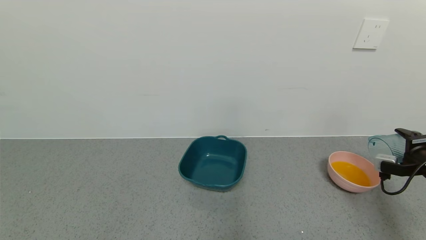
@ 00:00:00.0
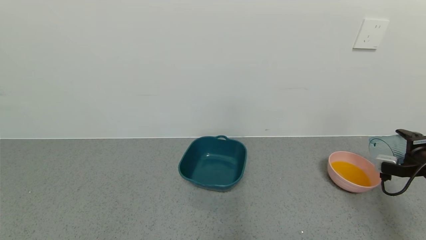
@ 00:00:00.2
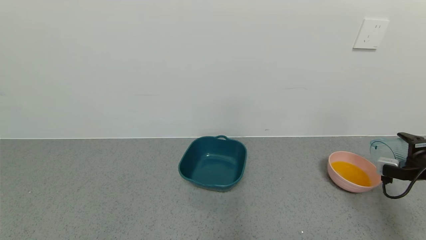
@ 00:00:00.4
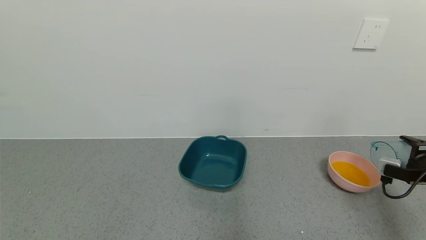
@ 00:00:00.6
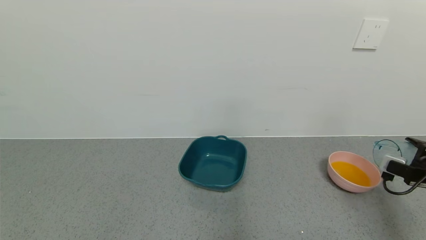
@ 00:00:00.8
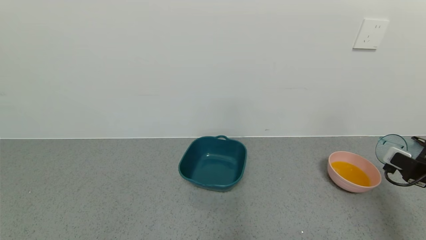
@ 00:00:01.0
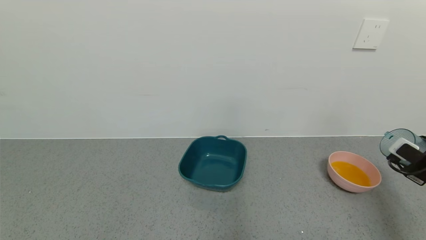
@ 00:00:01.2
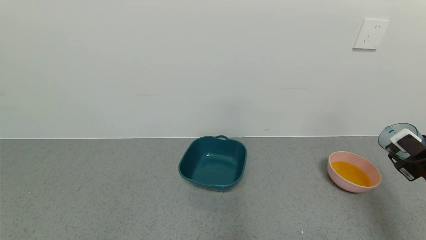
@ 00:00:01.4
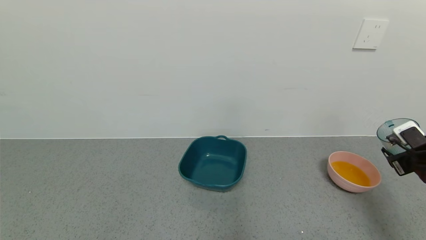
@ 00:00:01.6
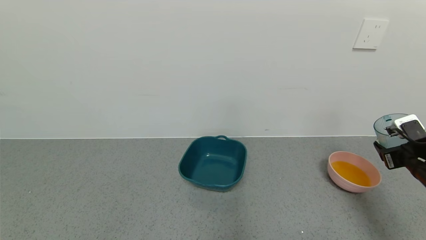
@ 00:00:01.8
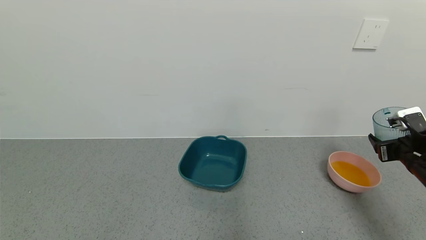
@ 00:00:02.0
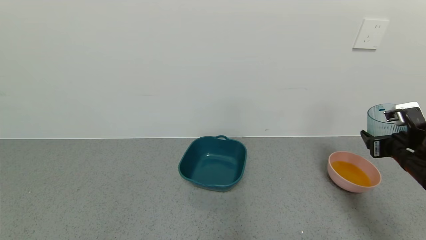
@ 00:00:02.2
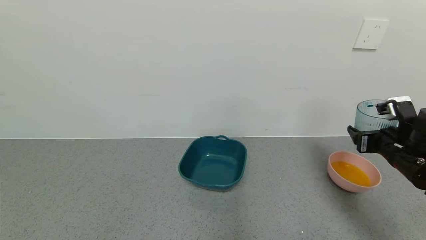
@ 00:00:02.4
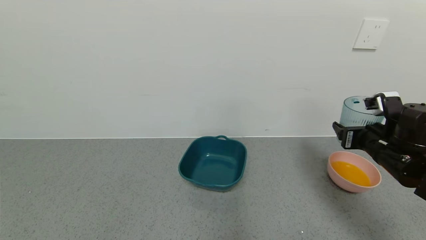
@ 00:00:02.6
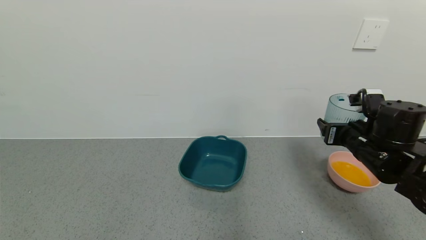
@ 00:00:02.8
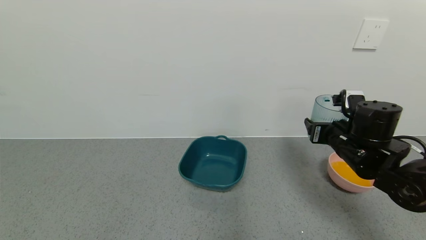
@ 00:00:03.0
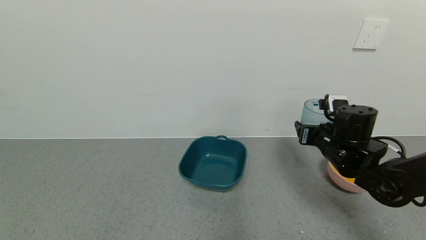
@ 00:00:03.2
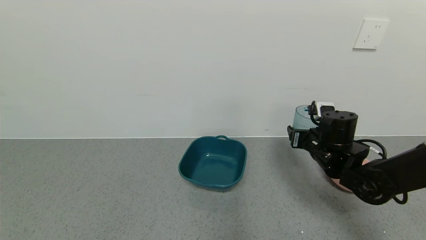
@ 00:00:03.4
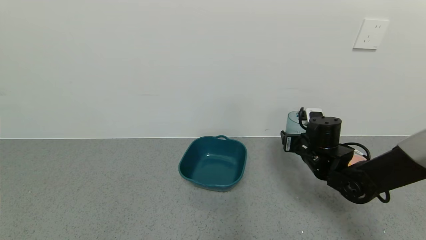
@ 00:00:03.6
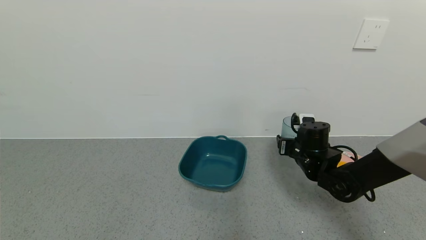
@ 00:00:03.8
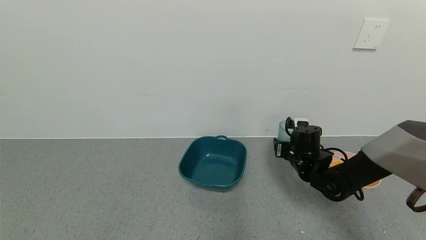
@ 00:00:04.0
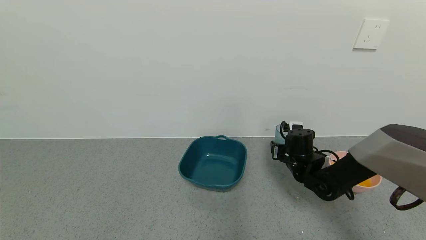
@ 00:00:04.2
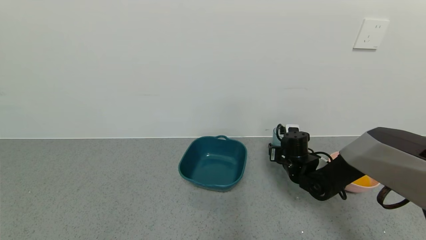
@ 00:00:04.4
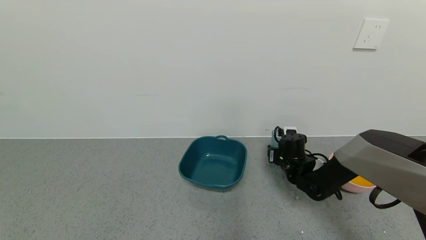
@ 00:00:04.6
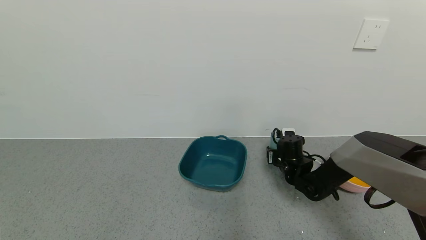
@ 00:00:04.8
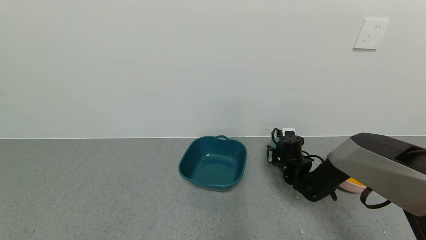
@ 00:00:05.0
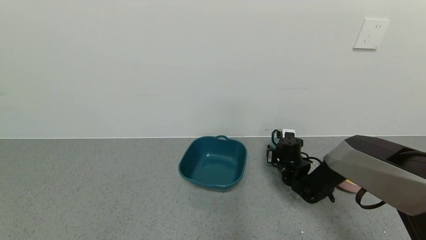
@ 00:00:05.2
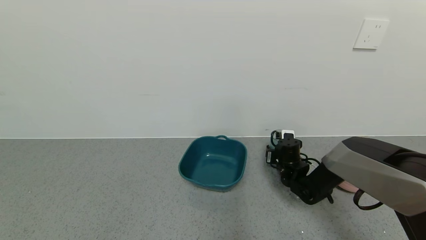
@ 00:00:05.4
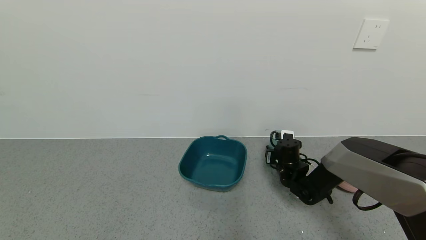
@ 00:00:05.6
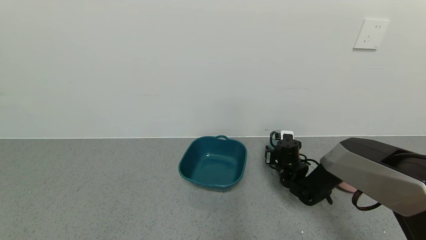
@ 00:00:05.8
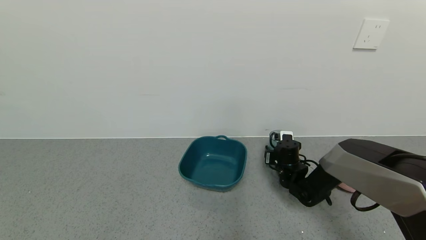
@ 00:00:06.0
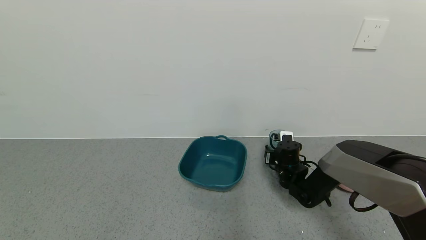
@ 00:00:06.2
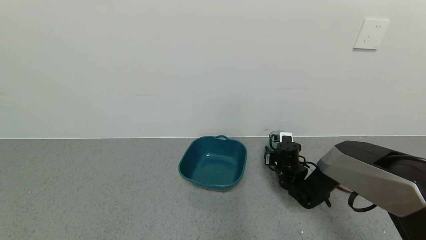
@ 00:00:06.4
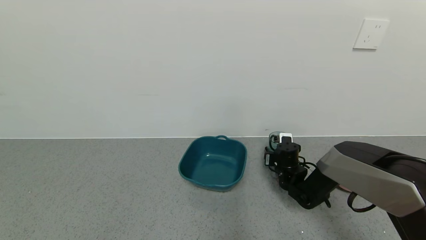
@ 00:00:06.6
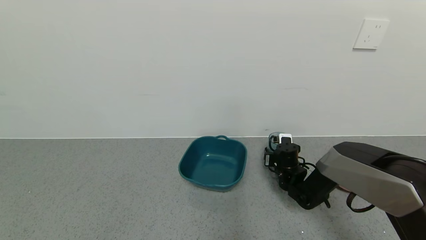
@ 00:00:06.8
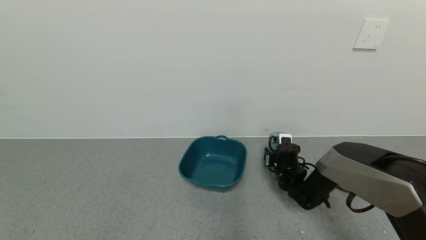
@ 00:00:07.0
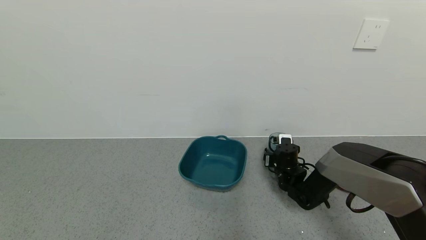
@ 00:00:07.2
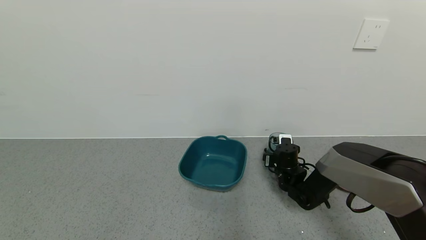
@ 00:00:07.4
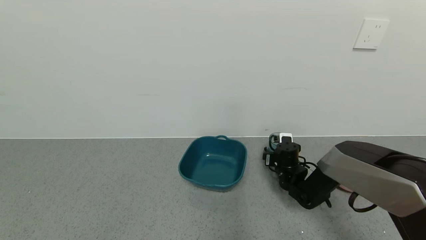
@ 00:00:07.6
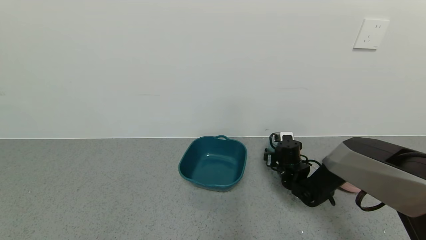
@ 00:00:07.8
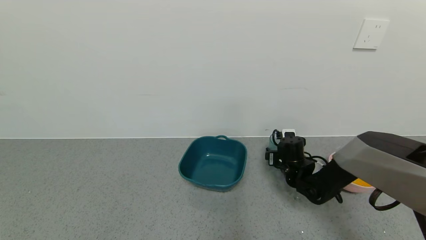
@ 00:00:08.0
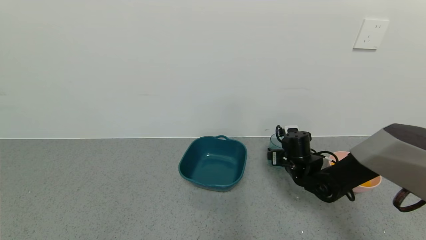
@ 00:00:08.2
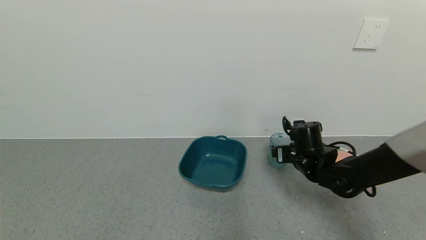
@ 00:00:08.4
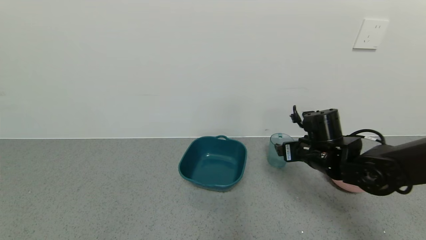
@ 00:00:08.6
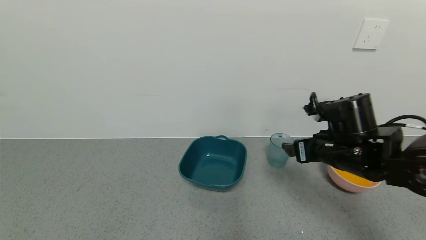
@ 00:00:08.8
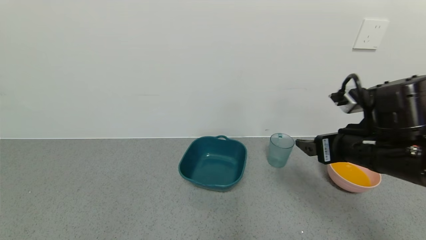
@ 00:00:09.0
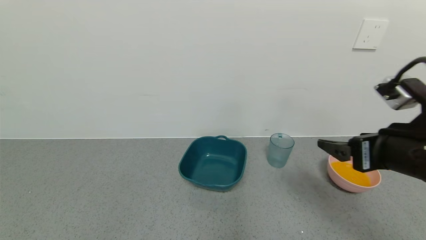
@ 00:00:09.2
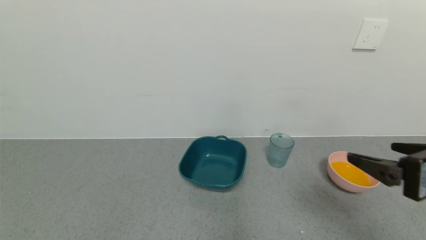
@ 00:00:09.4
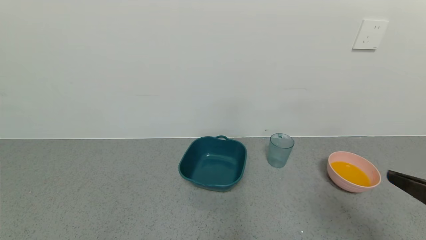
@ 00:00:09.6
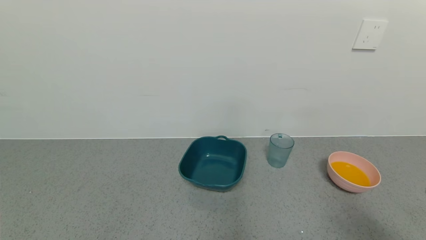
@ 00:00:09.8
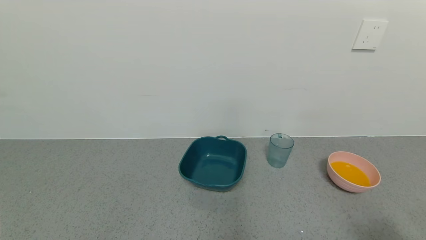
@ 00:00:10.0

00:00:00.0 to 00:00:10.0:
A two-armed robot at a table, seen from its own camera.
Task of the whole recording: use a gripper to pick up the cup and pour the liquid into a bowl or tray.
Step, 00:00:00.0 to 00:00:07.6: Place blue cup with orange juice on the table with right gripper.
00:00:01.4 to 00:00:02.8: The right gripper heads to the left, covering roughly 15 cm.
00:00:02.8 to 00:00:04.2: The right gripper moves downward, forward and to the left, about 15 cm.
00:00:04.2 to 00:00:05.8: The right gripper moves approximately 5 cm.
00:00:05.8 to 00:00:07.2: The two grippers keep their place.
00:00:07.2 to 00:00:08.6: The right gripper shifts about 15 cm upward and backward, and opens its fingers.
00:00:08.6 to 00:00:10.0: The right gripper moves backward and to the right, approximately 30 cm.
